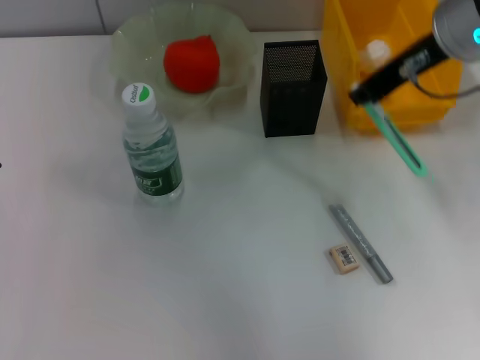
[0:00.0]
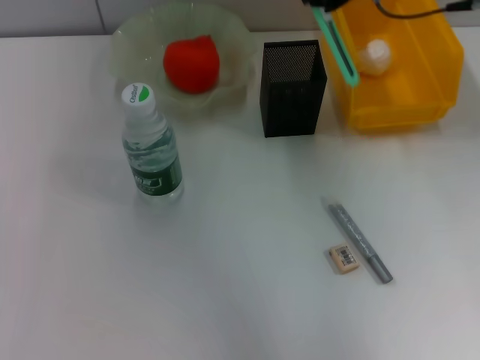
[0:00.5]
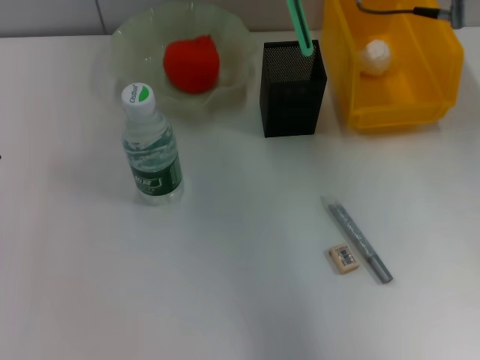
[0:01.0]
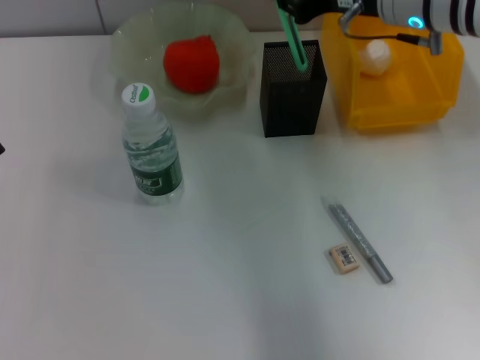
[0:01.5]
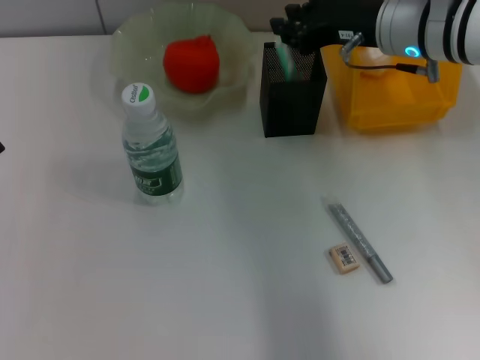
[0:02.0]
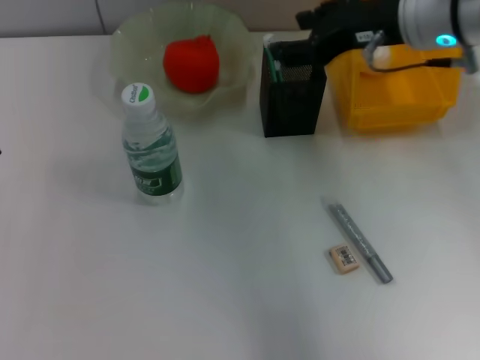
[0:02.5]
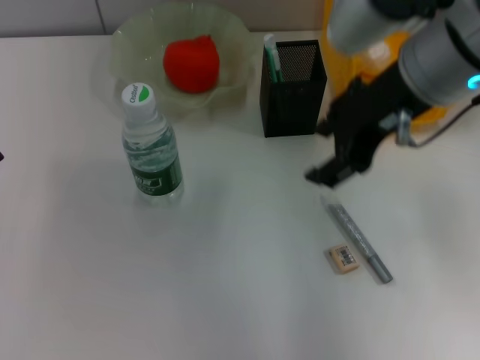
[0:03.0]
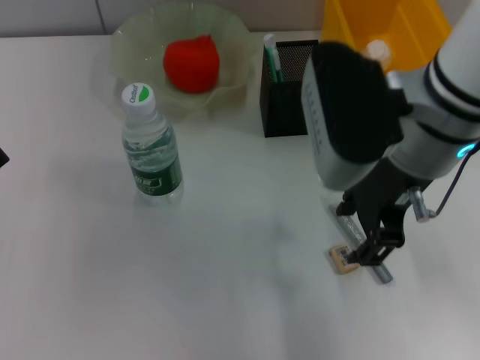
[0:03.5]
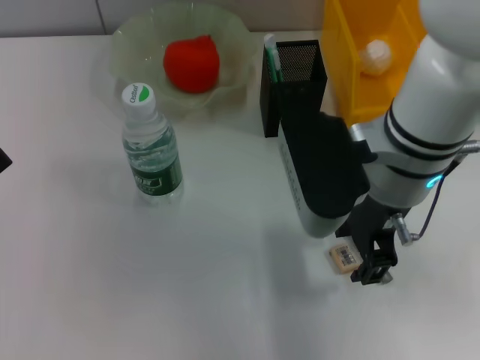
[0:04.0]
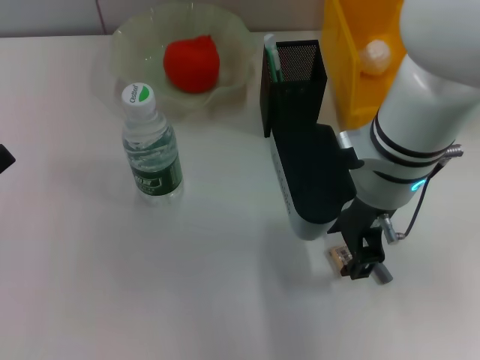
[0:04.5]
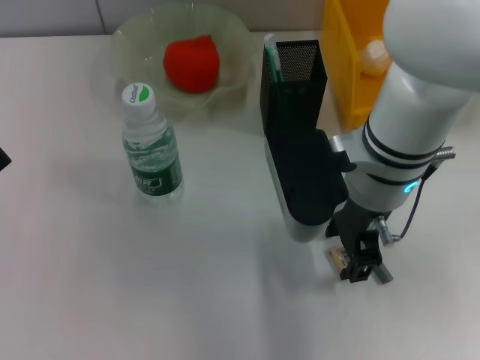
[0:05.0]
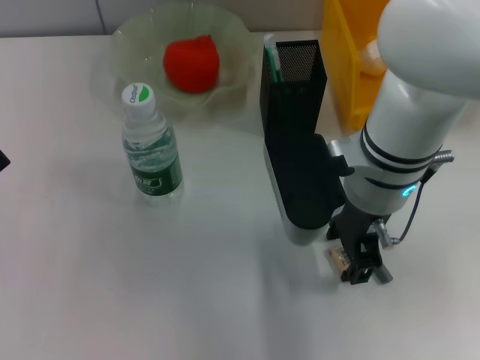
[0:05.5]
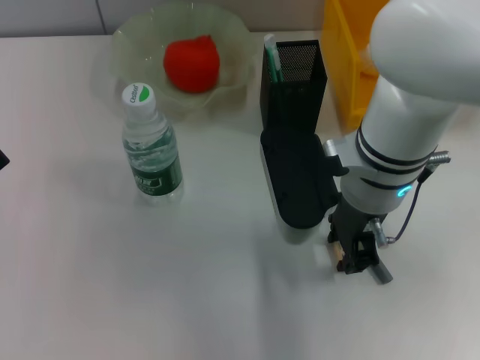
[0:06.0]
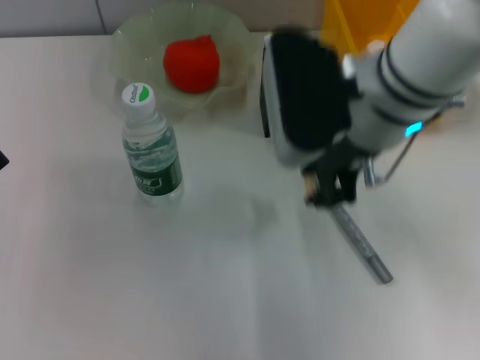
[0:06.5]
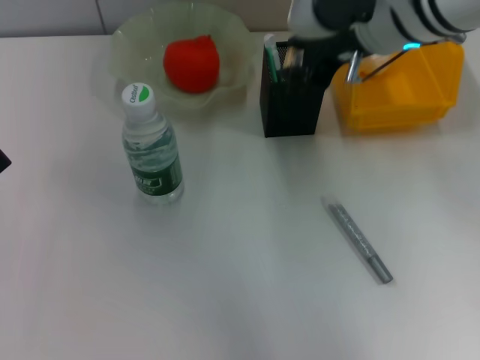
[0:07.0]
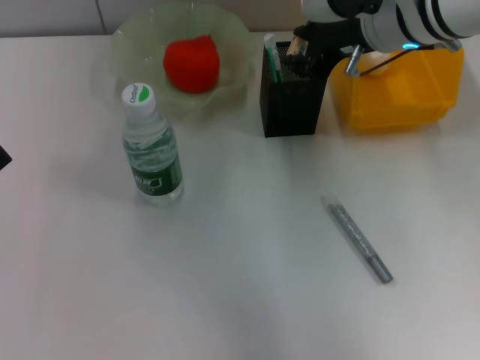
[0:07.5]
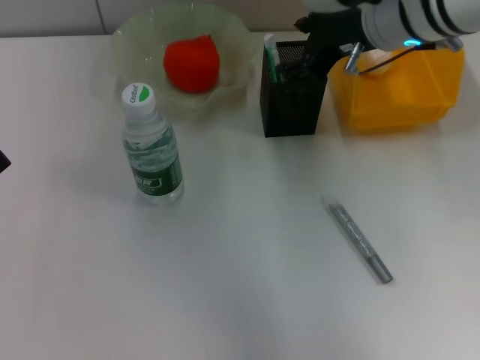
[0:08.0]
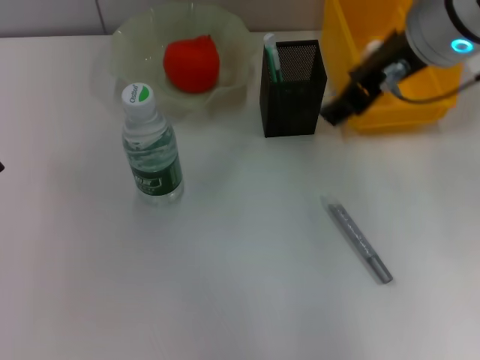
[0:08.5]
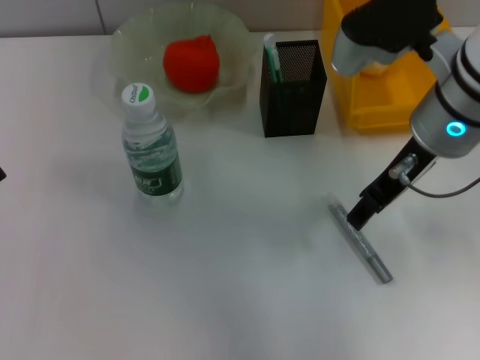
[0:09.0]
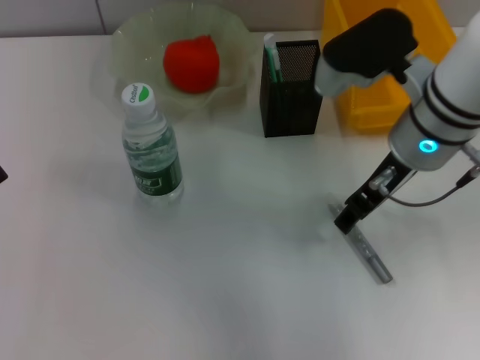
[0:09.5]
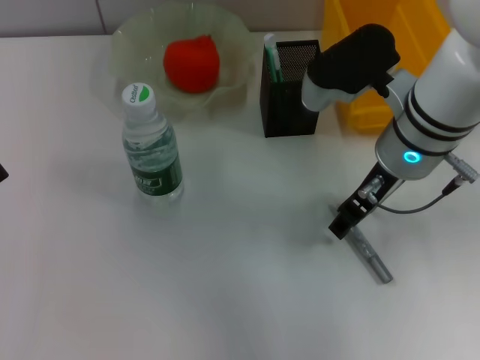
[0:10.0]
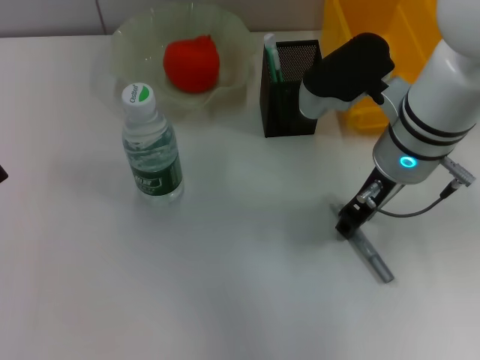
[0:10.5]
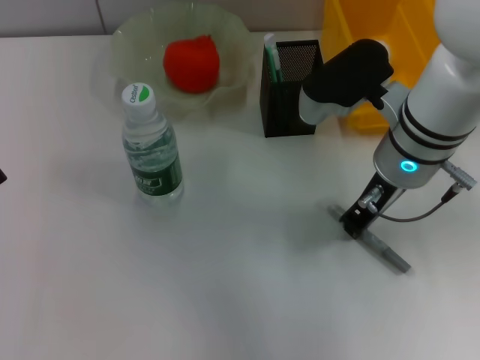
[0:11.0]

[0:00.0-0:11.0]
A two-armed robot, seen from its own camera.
Step, 0:00.0 to 0:02.0: Place the blue utility knife into the pen holder with the right hand.
Step, 0:02.5 to 0:05.5: Grab the eraser with the right hand.
Step, 0:06.0 to 0:07.5: Put the eraser into the pen holder with the right hand.
Step, 0:08.0 to 0:10.5: Grab the gray glue with the right hand.
0:00.0 to 0:02.0: The right gripper goes about 10 cm downward.
0:02.0 to 0:03.5: The right gripper heads backward, covering some 10 cm, and opens up.
0:03.5 to 0:05.5: The right gripper heads downward, covering some 5 cm.
0:05.5 to 0:07.5: The right gripper heads forward and upward, covering approximately 10 cm.
0:07.5 to 0:09.0: The right gripper goes approximately 5 cm backward, and opens its fingers.
0:09.0 to 0:11.0: The right gripper goes roughly 5 cm downward, and closes up.

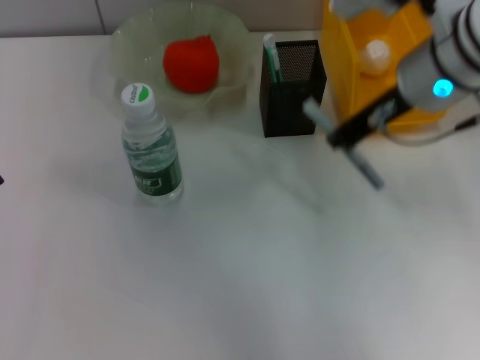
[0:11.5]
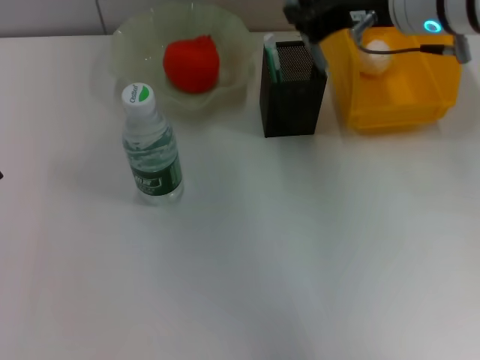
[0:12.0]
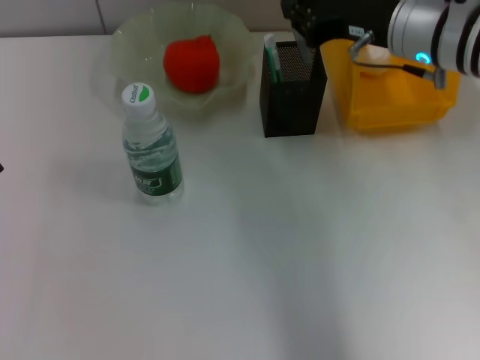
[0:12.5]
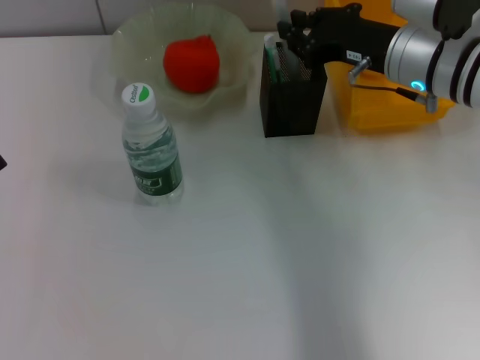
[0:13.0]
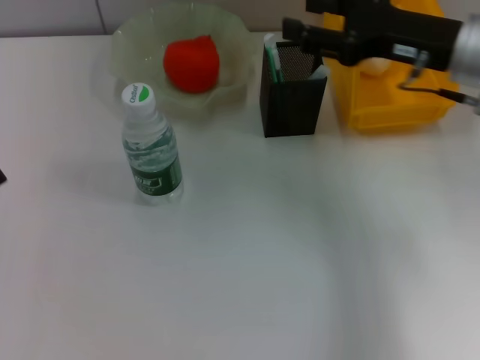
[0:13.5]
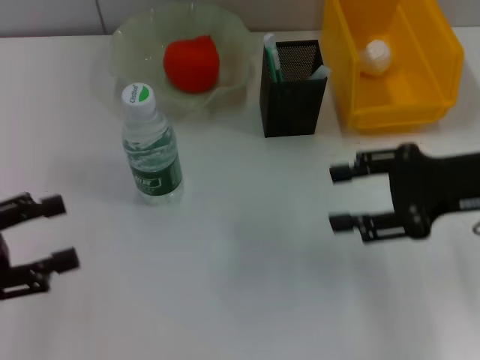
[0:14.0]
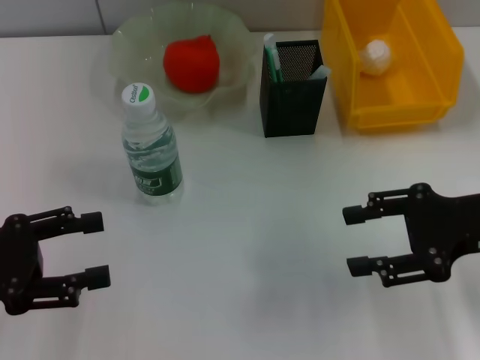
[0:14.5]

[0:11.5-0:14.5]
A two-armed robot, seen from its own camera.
Step, 0:11.5 to 0:13.0: Place the gray glue into the pen holder with the right hand.
0:11.5 to 0:13.0: The right gripper heads downward, covering some 5 cm.
0:13.0 to 0:14.5: The right gripper travels backward and to the right by roughly 15 cm, and opens its fingers; the left gripper shifts by approximately 5 cm.

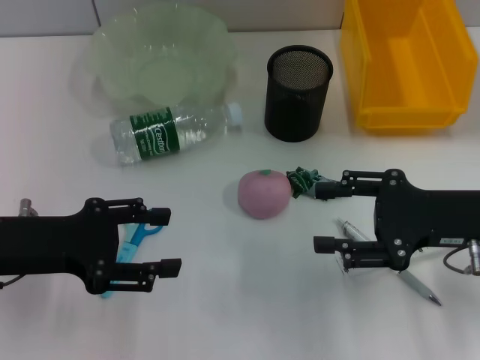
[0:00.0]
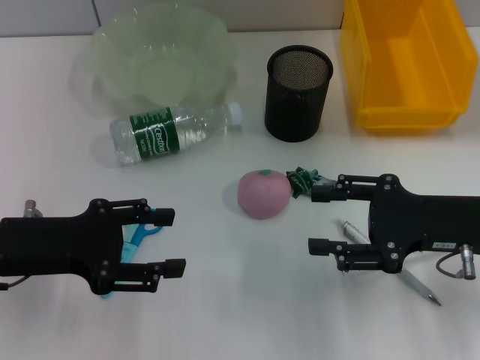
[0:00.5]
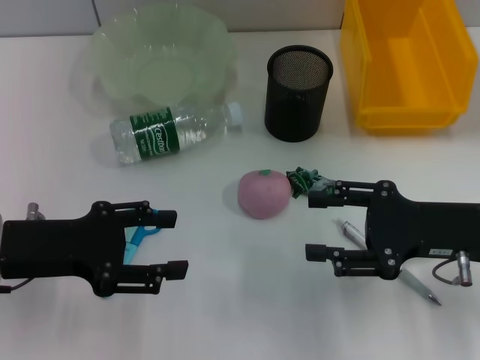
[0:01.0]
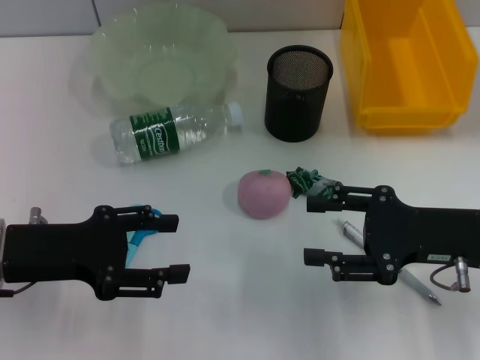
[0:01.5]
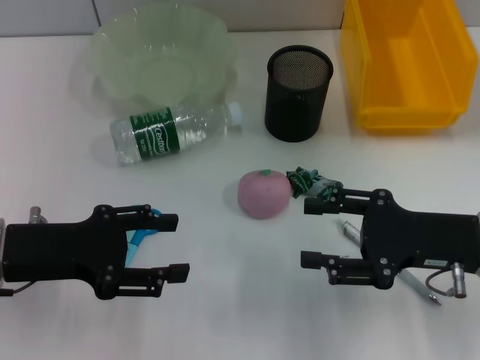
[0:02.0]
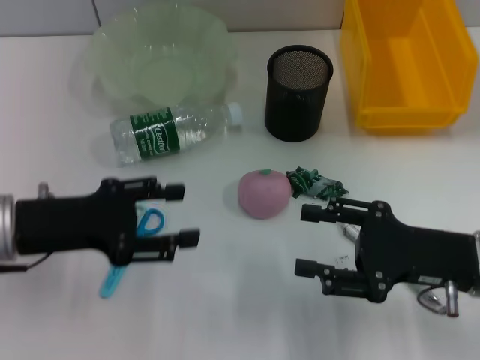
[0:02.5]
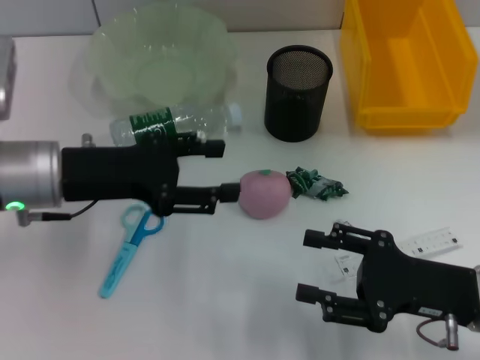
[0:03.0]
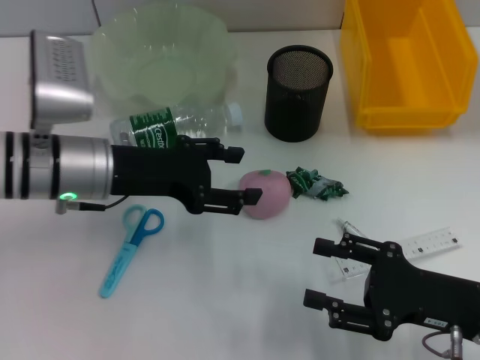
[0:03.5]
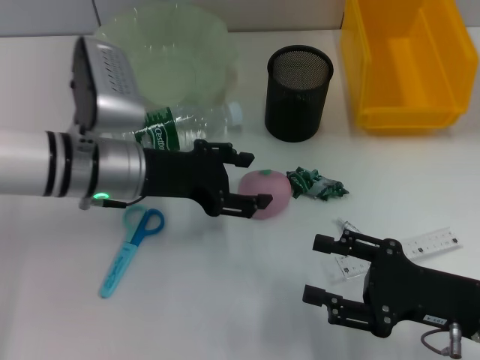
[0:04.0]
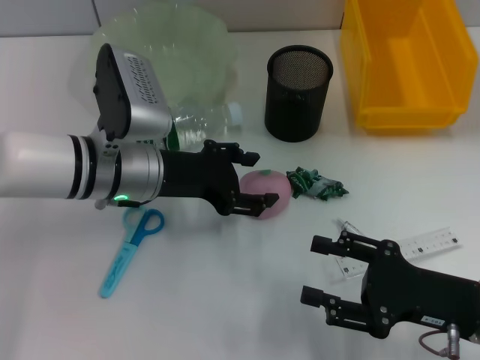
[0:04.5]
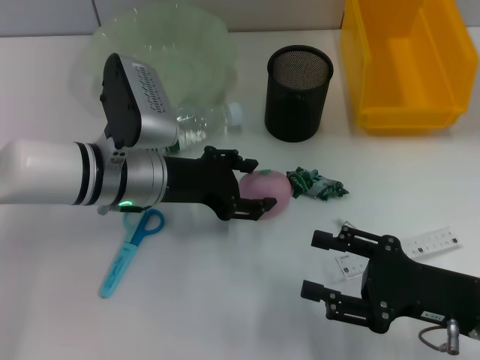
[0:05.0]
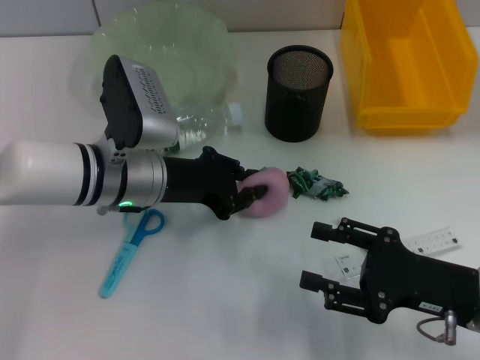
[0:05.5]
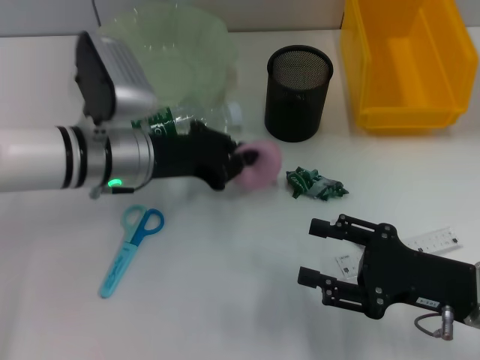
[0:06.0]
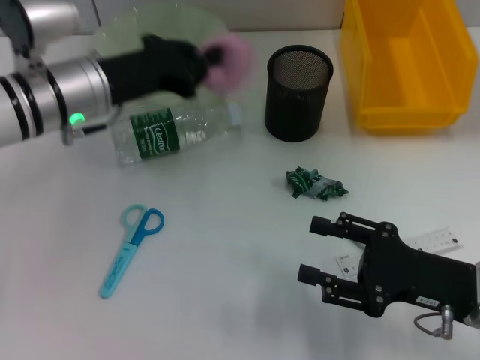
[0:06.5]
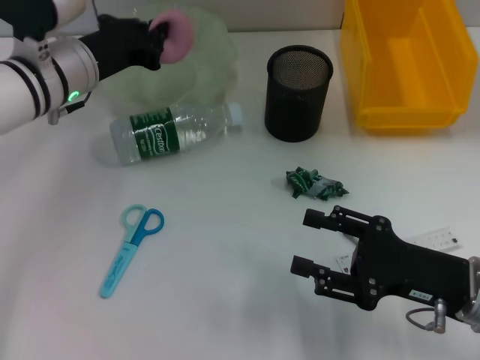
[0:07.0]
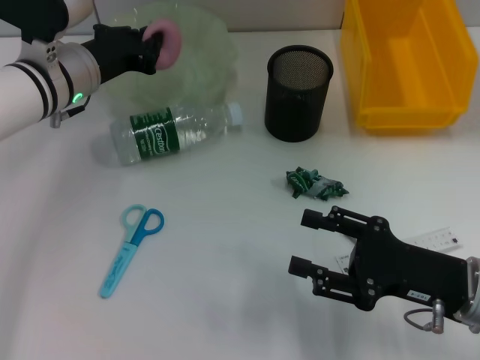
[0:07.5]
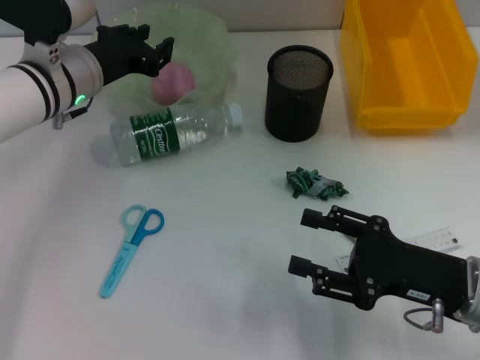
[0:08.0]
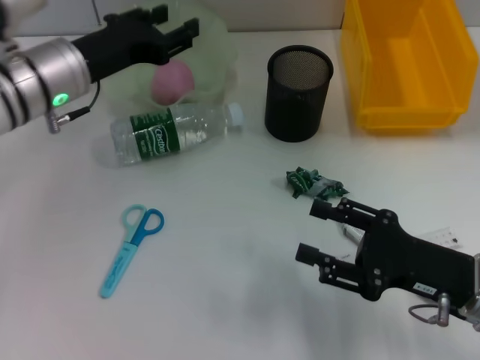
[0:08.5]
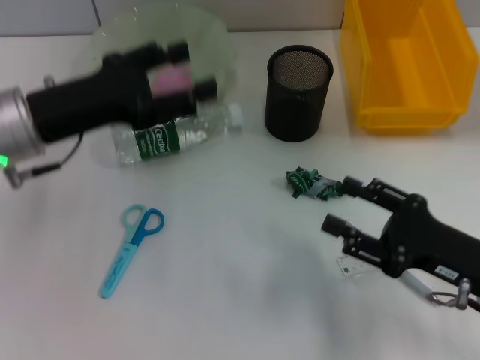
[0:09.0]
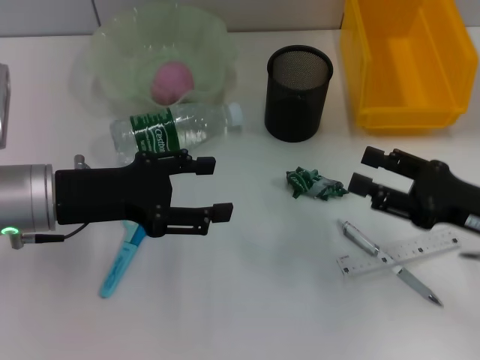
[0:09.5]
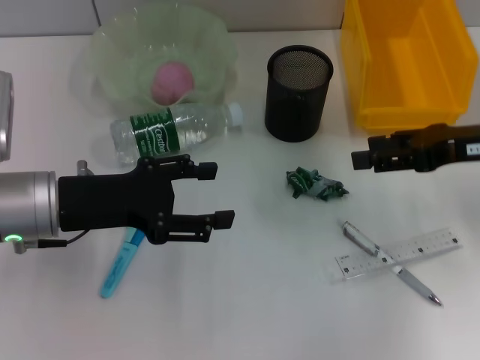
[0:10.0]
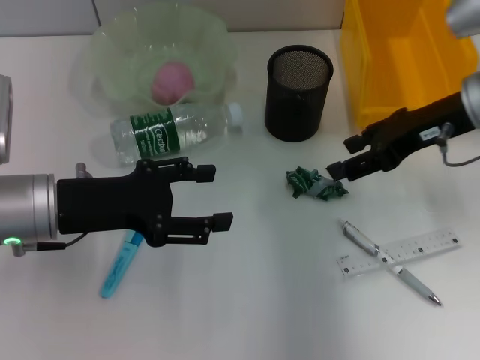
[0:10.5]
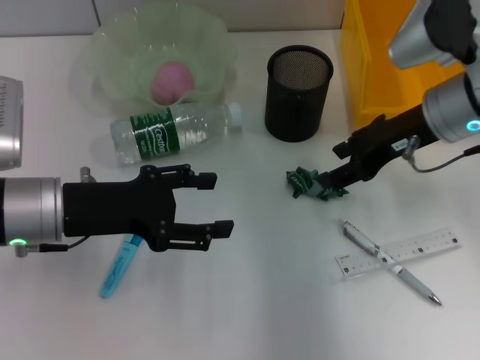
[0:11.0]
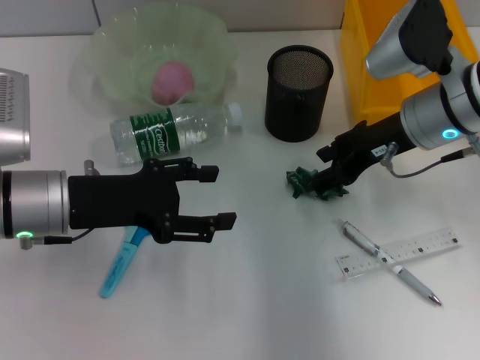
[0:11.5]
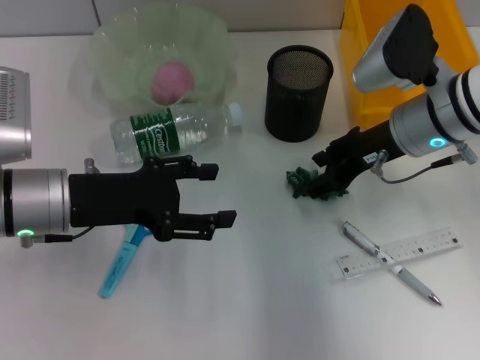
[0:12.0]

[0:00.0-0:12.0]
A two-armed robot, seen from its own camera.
Step, 0:00.0 to 0:05.5: Grab the peach with the left hand.
Step, 0:06.0 to 0:07.5: Place the peach into the fruit bowl with the left hand.
0:00.0 to 0:02.0: There are only small adjustments of the grippers.
0:02.0 to 0:04.0: The right gripper travels backward by about 5 cm. The left gripper moves to the right and forward, approximately 15 cm.
0:04.0 to 0:06.0: The left gripper closes up.
0:06.0 to 0:08.0: The left gripper goes roughly 5 cm forward.
0:08.0 to 0:10.0: The left gripper travels backward by about 15 cm, and opens its fingers. The right gripper moves forward, upward and to the right, about 15 cm.
0:10.0 to 0:12.0: The right gripper heads to the left, covering some 10 cm.
